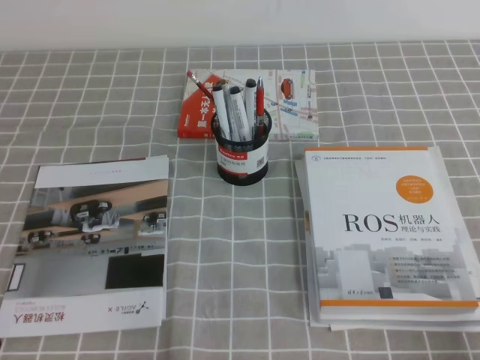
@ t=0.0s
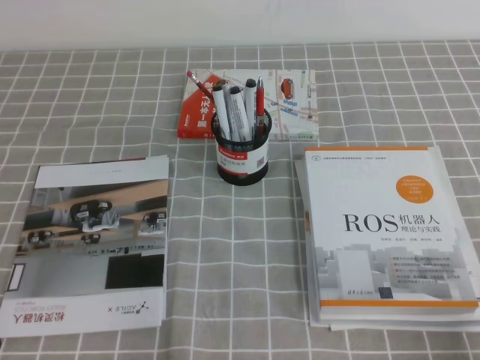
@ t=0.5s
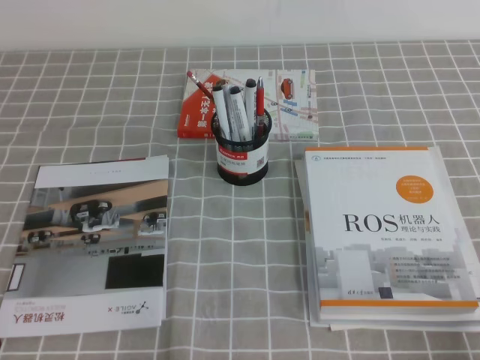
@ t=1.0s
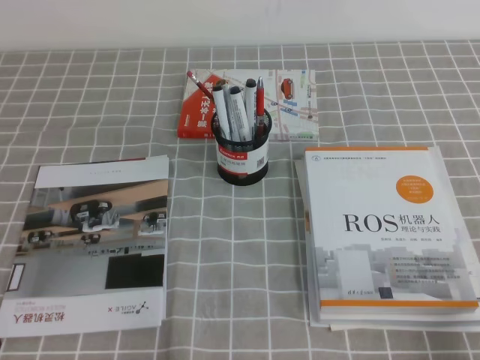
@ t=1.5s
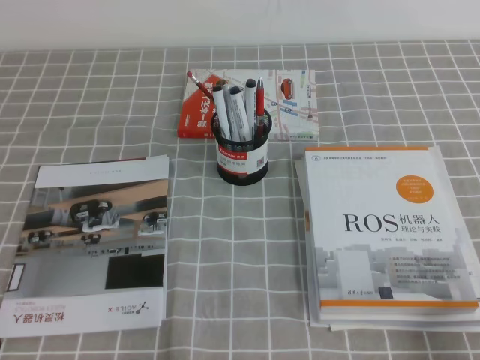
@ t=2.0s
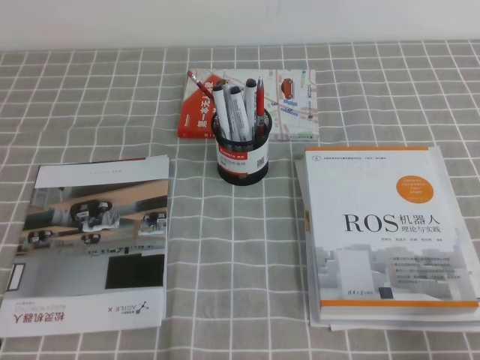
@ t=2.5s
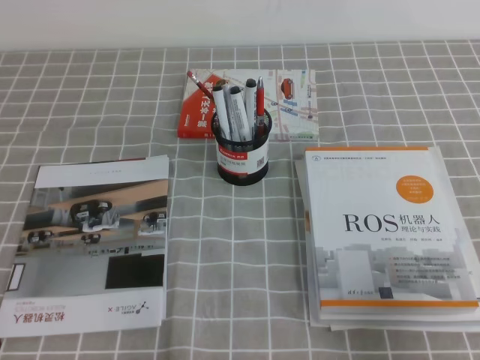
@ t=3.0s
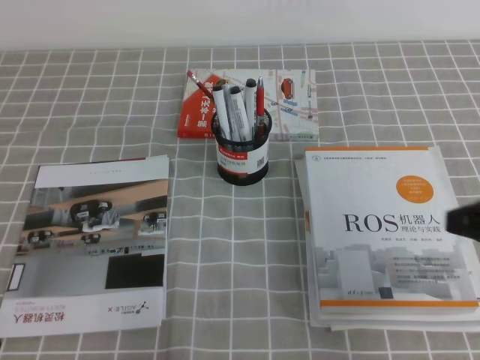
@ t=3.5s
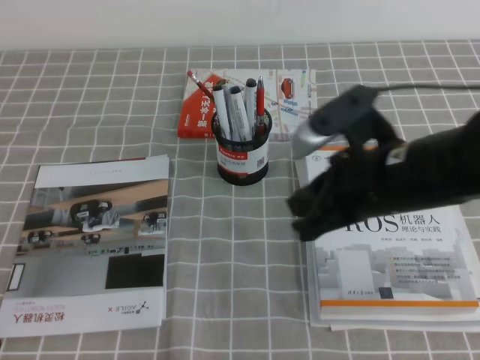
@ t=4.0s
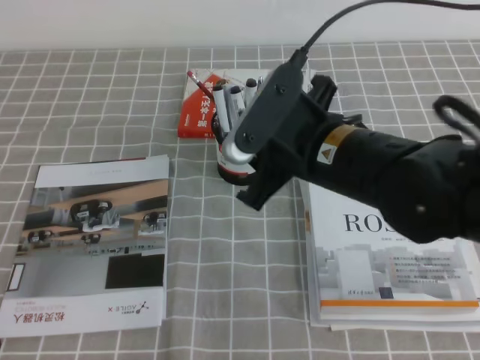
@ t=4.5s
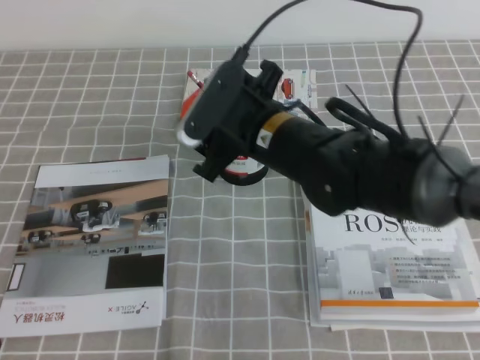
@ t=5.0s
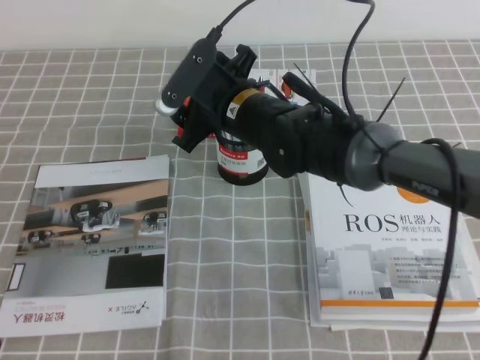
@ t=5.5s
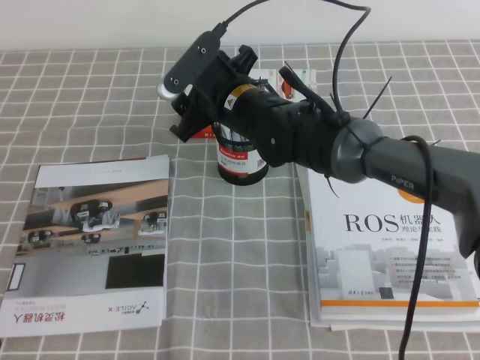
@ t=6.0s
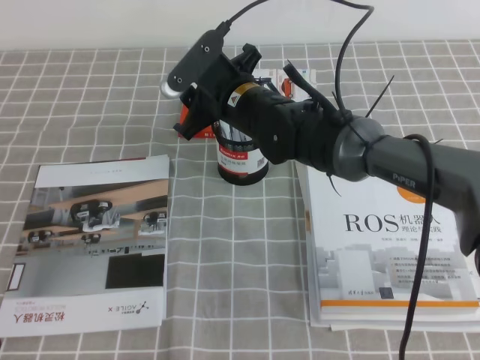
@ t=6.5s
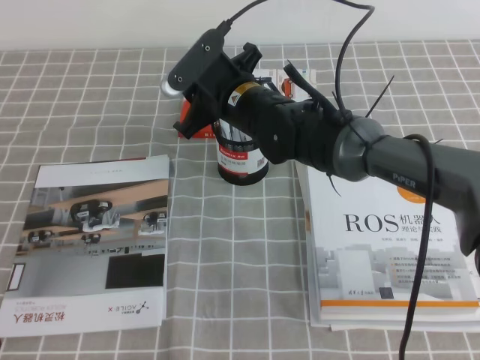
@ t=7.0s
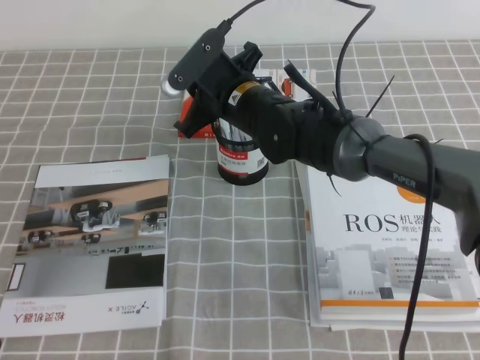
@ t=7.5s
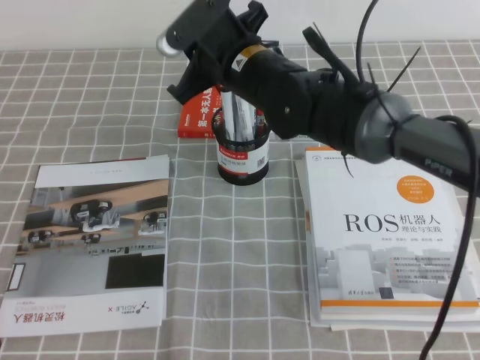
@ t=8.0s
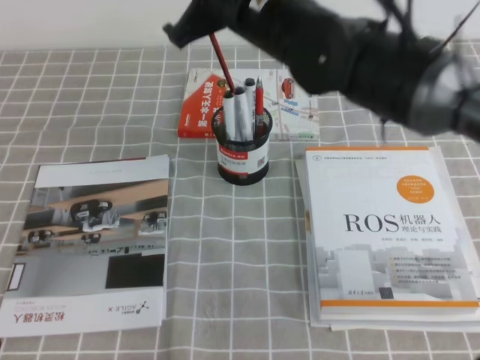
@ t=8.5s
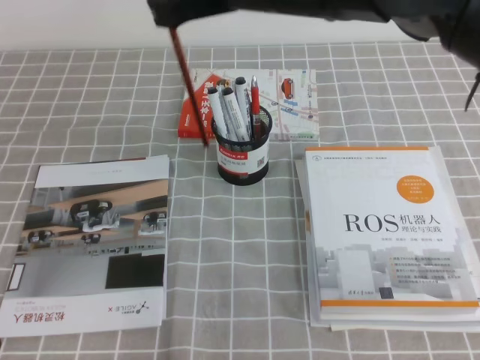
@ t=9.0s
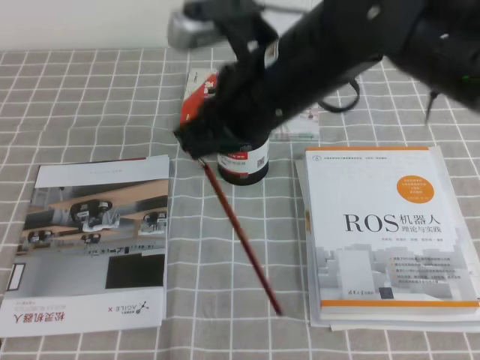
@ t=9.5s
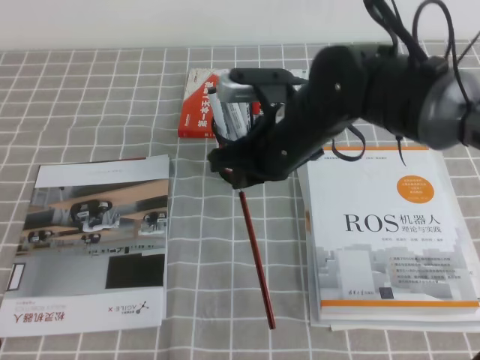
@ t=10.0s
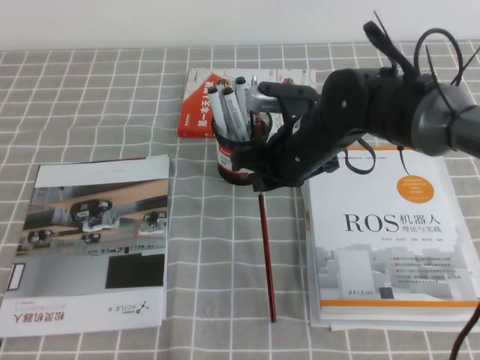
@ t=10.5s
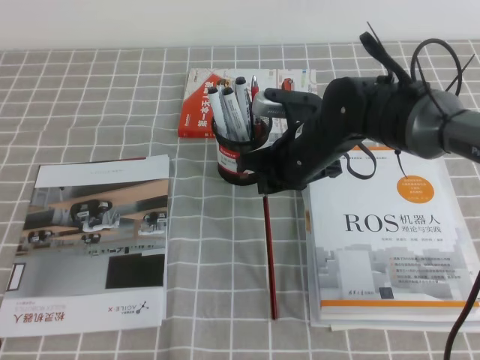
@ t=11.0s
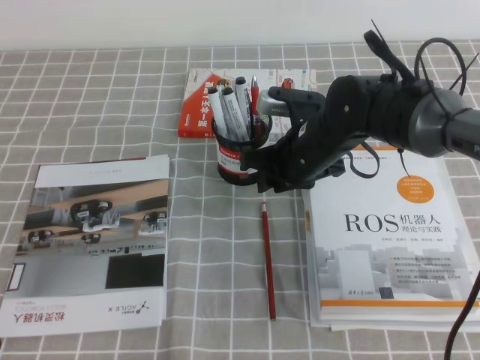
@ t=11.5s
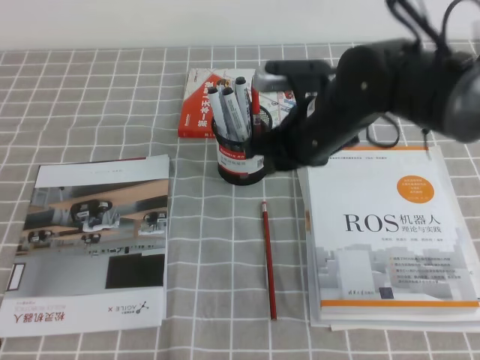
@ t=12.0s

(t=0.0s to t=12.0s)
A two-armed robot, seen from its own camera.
t=2.0s - t=4.0s: The right gripper goes approximately 25 cm forward, to the left and upward.
t=4.0s - t=6.0s: The right gripper goes about 20 cm forward and to the left, and opens its fingers.
t=6.0s - t=8.0s: The right gripper closes up.
t=8.0s - t=10.0s: The right gripper goes some 5 cm backward, and goes upward and returns, some 15 cm each way.
t=10.0s - t=12.0s: The right gripper opens up.

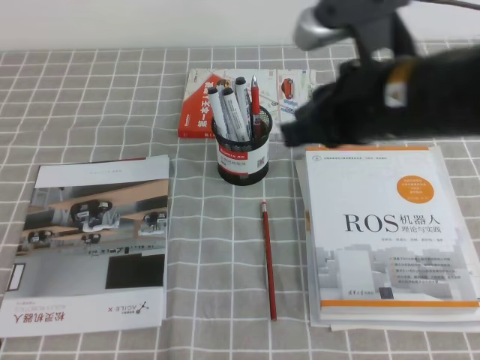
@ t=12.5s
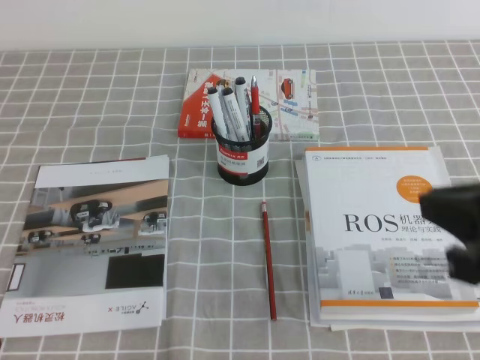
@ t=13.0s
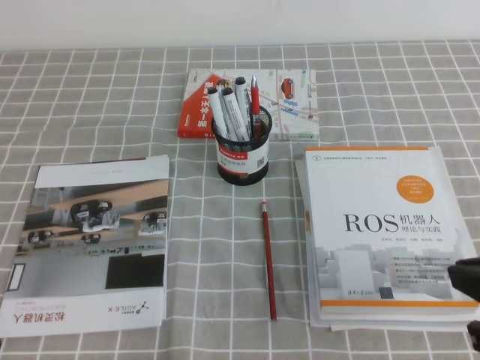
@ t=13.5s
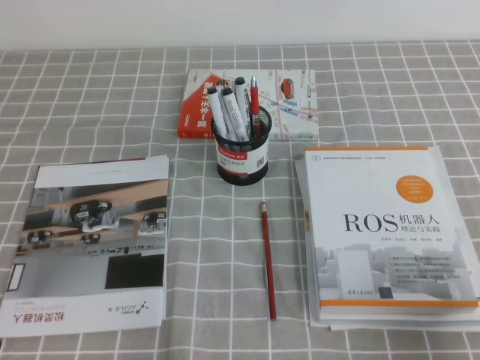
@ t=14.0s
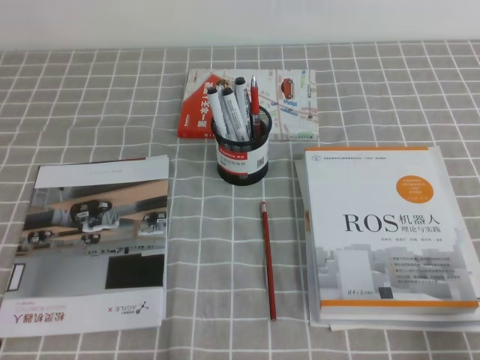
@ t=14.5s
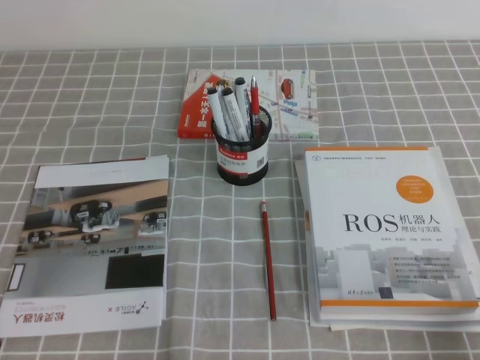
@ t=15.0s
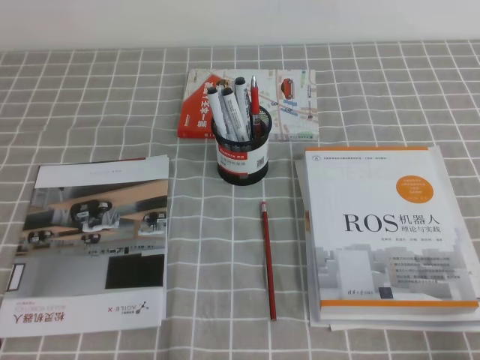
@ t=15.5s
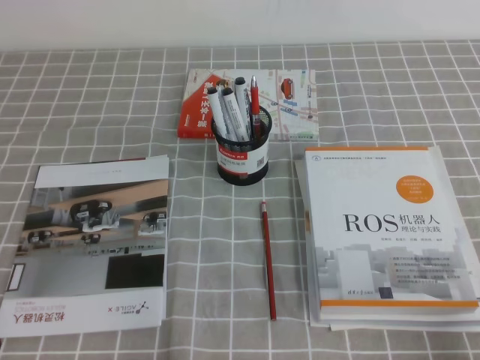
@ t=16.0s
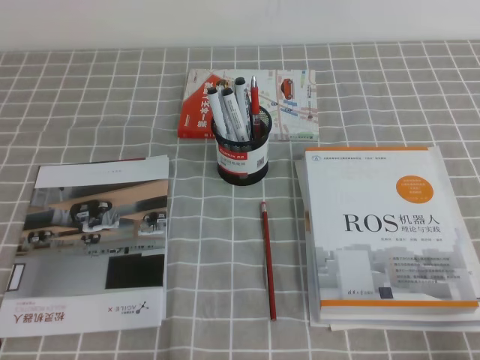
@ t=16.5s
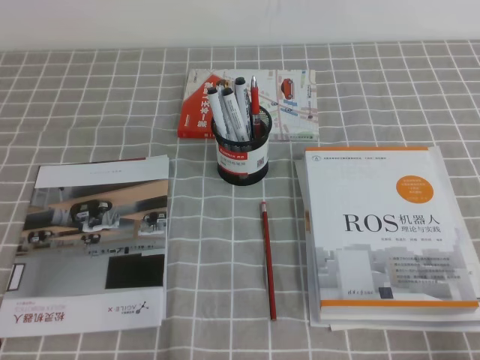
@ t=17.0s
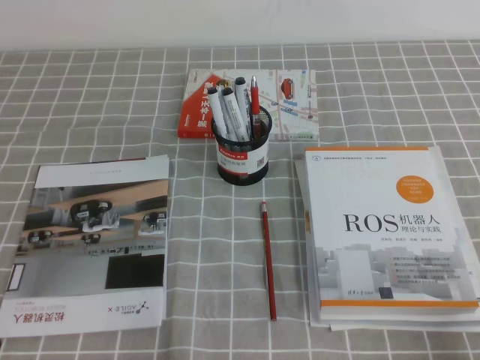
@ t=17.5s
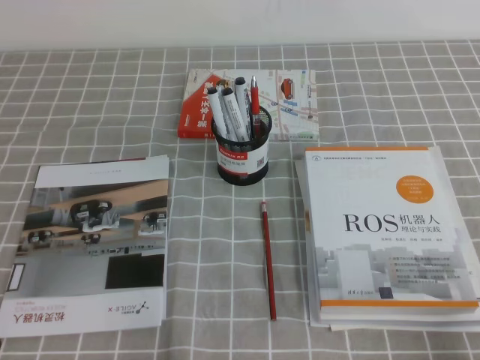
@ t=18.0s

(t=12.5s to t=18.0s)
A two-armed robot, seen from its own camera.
Step, t=12.5s - t=18.0s: Pick up the pen from the pen holder.
t=12.5s - t=14.5s: The right gripper shifts approximately 35 cm to the right, backward and downward.
t=16.0s - t=18.0s: Both grippers stay put.

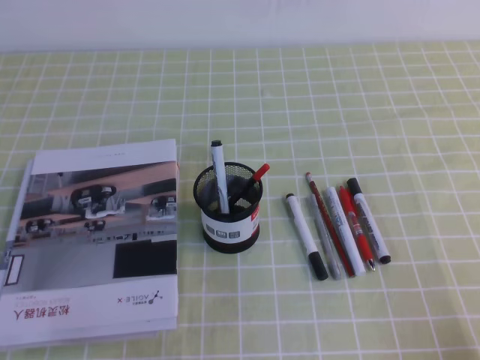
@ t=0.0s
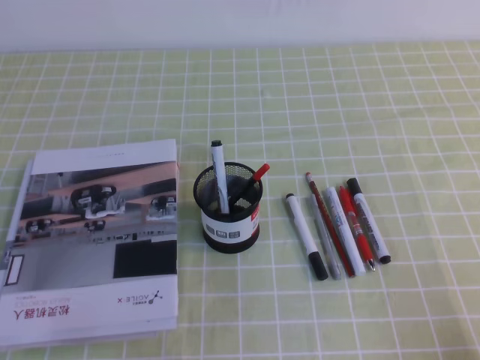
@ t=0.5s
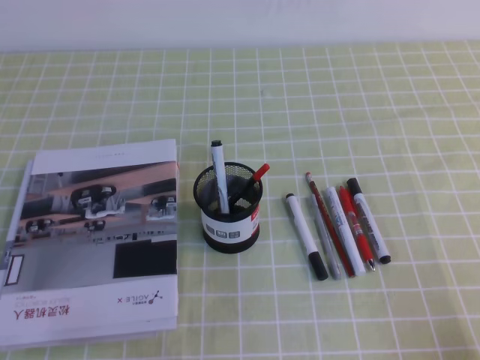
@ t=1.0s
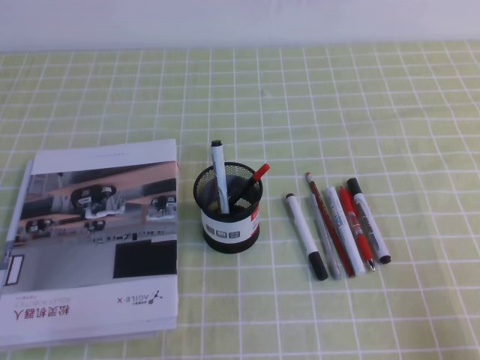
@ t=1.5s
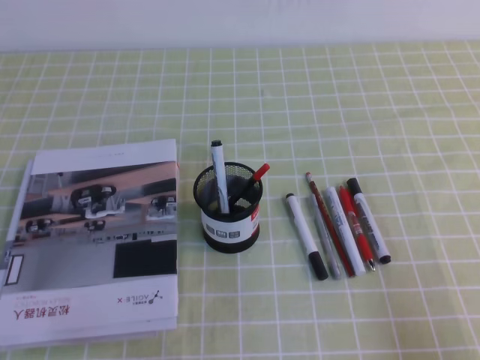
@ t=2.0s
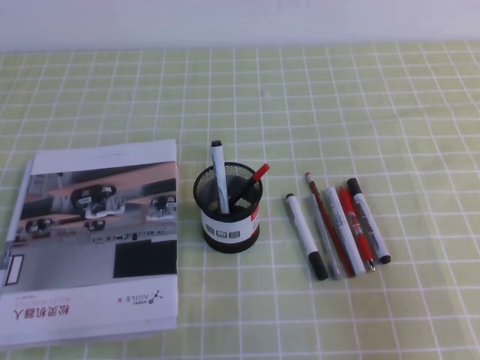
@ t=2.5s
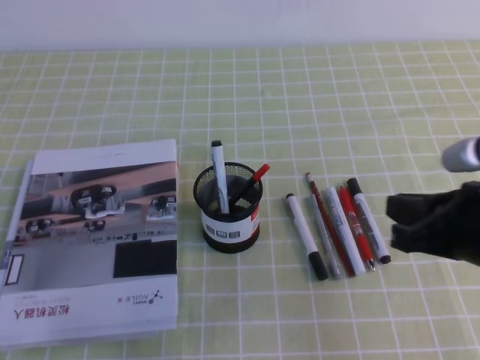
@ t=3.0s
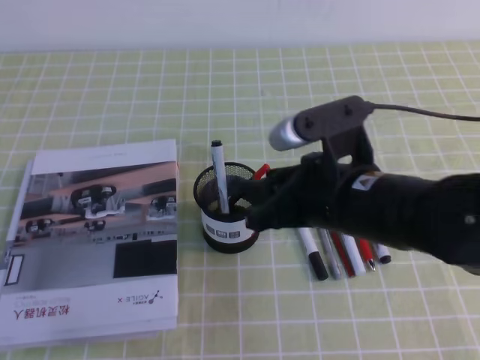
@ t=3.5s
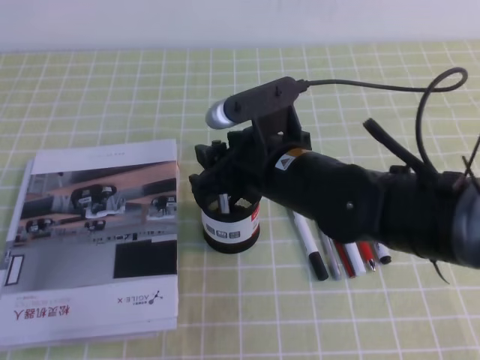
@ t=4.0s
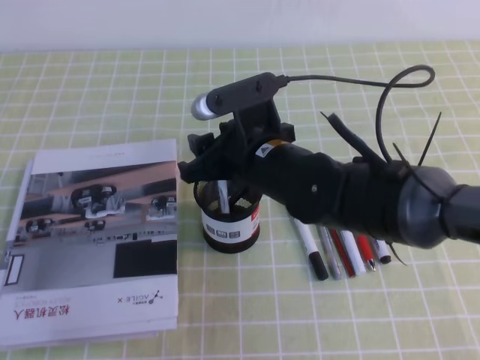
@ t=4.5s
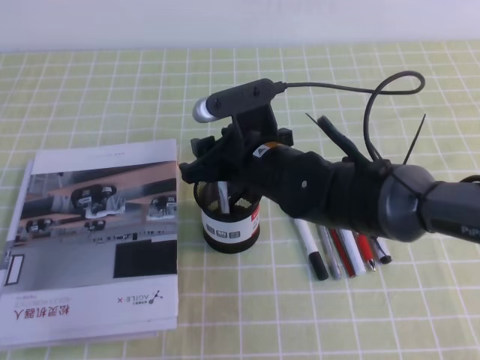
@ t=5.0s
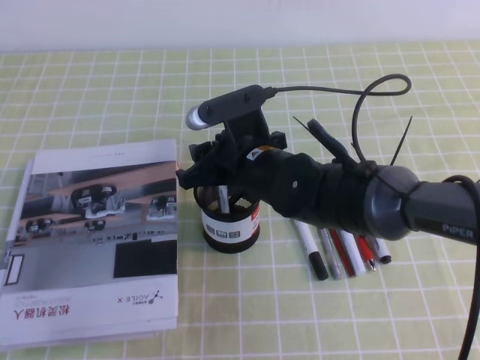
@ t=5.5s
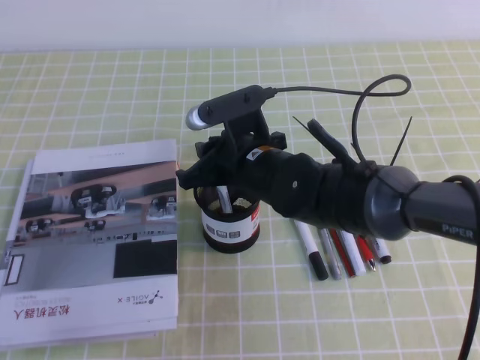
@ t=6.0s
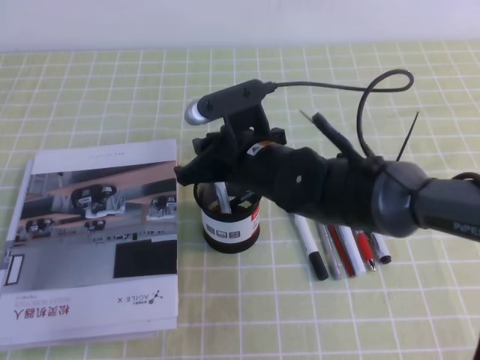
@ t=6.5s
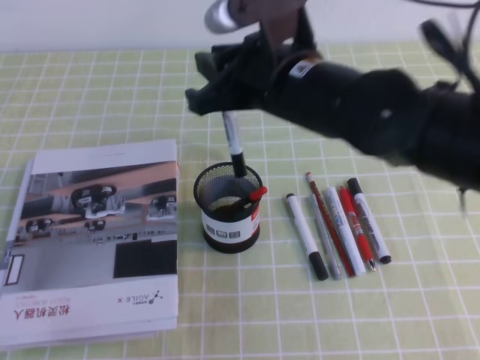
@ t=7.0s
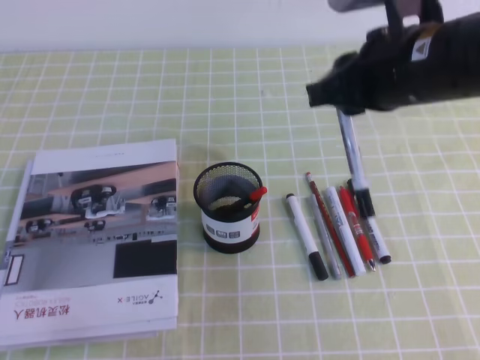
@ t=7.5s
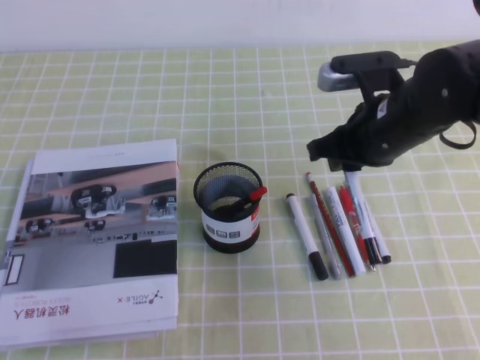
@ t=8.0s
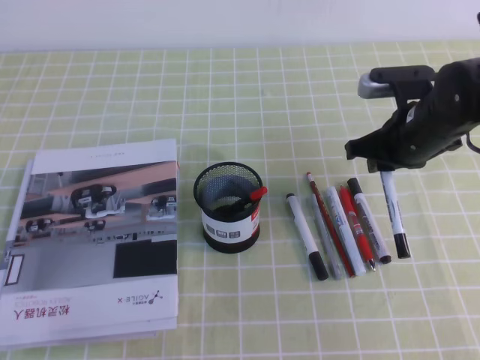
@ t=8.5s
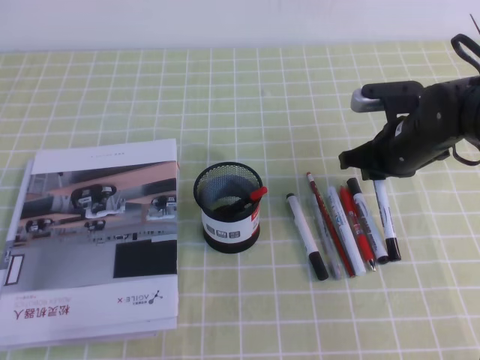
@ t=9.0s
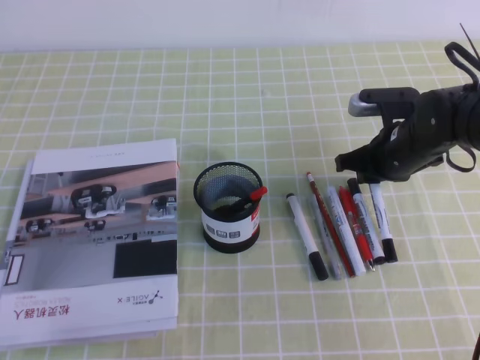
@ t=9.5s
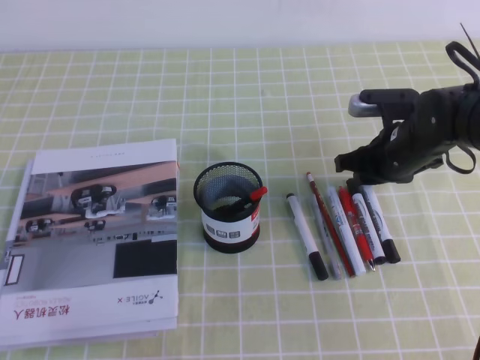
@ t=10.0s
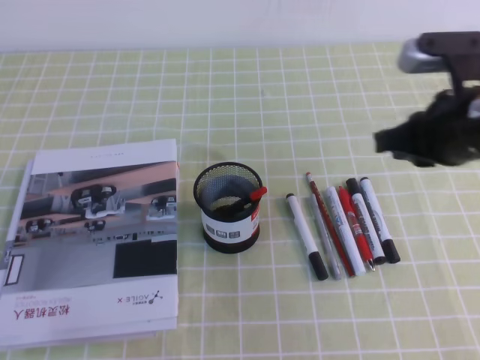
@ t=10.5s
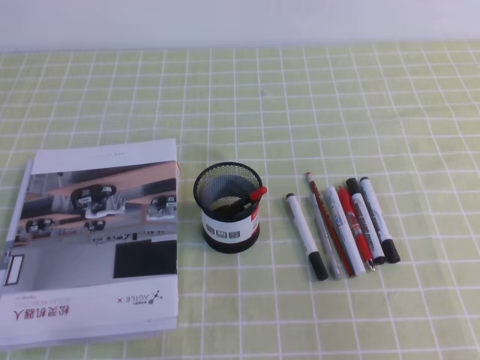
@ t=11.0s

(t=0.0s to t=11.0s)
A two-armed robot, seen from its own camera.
t=2.0s - t=3.5s: The right gripper travels to the left and forward by approximately 25 cm, and opens its fingers.
t=3.5s - t=5.5s: The right gripper goes approximately 15 cm forward, to the left and downward.
t=5.5s - t=7.5s: The right gripper heads upward and to the right, covering some 20 cm, and closes its fingers.
t=7.5s - t=9.0s: The right gripper heads downward and forward, covering some 20 cm.
t=9.0s - t=11.0s: The right gripper moves backward and upward, approximately 30 cm.
